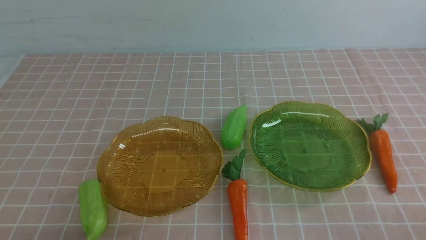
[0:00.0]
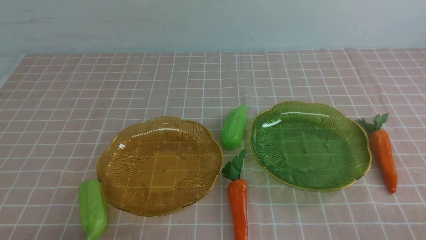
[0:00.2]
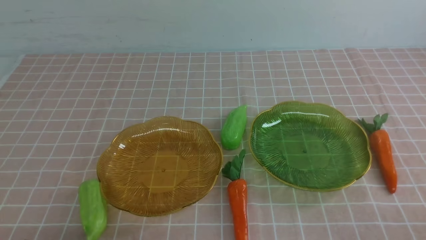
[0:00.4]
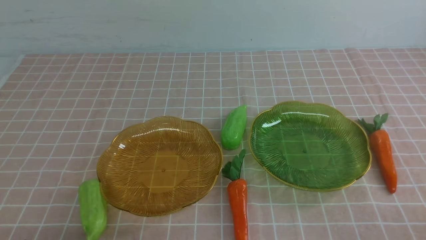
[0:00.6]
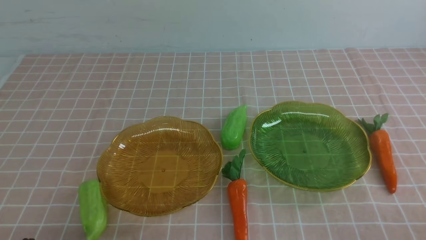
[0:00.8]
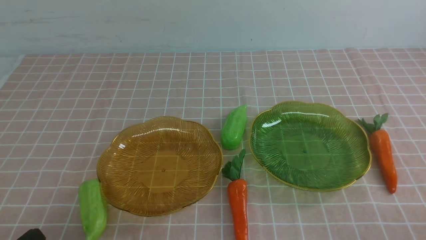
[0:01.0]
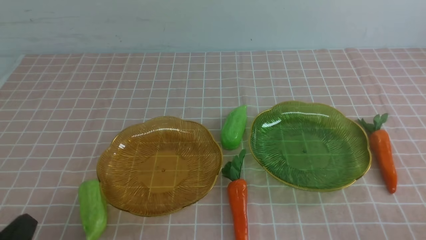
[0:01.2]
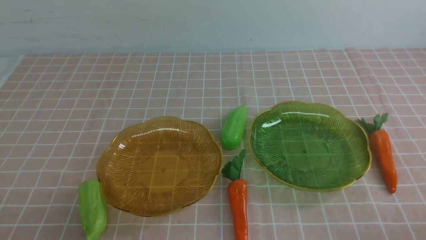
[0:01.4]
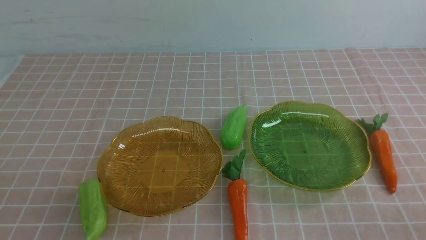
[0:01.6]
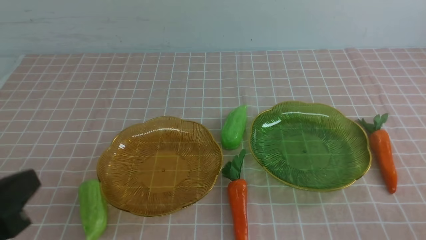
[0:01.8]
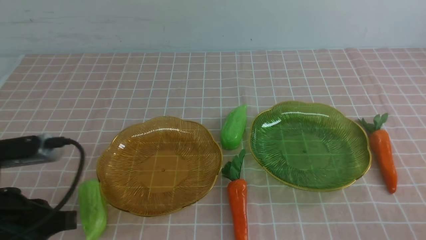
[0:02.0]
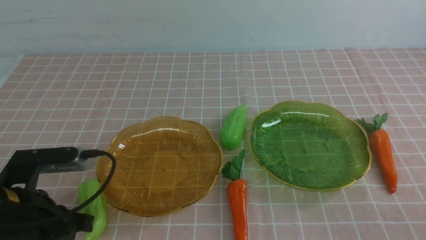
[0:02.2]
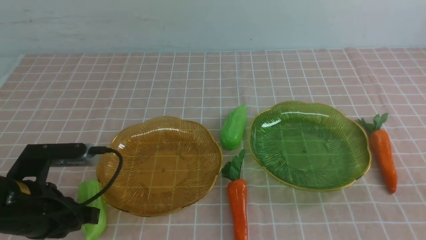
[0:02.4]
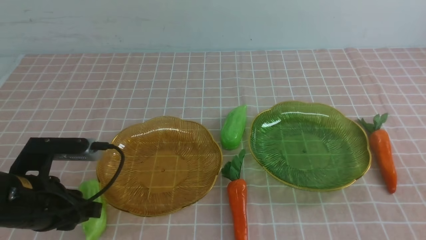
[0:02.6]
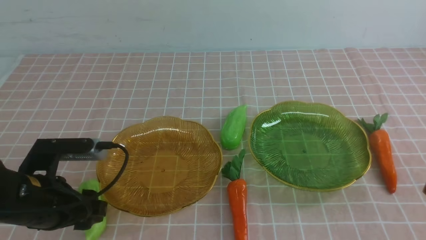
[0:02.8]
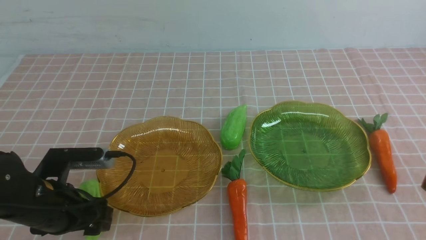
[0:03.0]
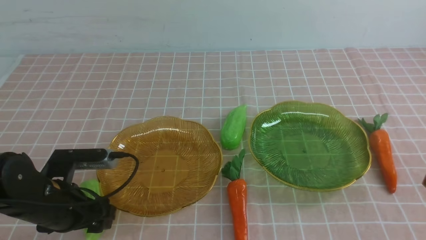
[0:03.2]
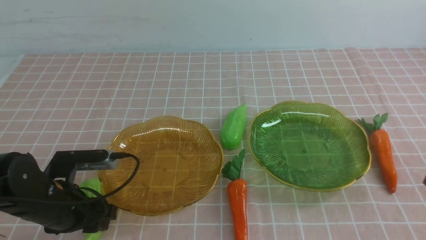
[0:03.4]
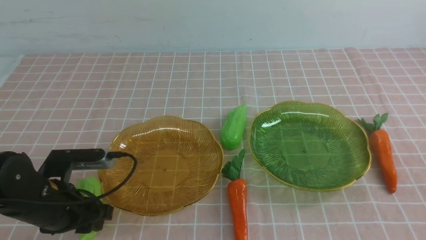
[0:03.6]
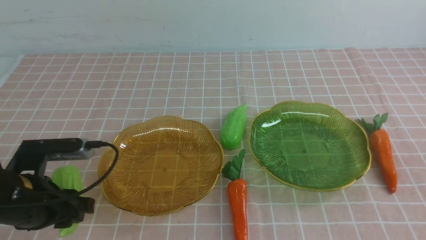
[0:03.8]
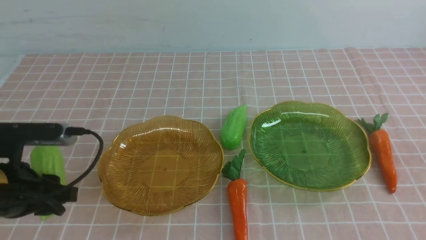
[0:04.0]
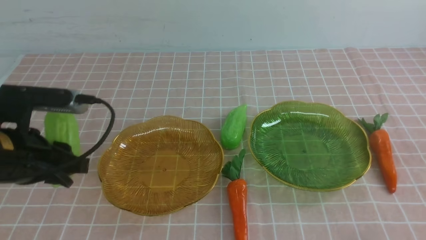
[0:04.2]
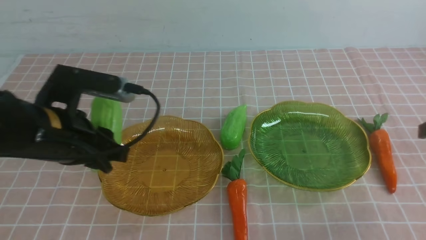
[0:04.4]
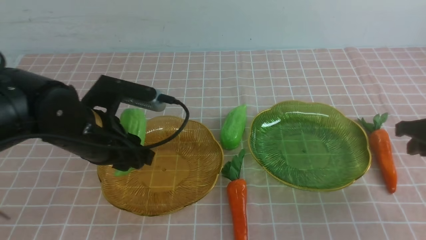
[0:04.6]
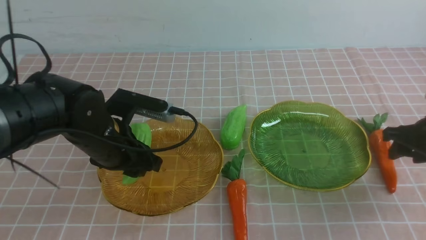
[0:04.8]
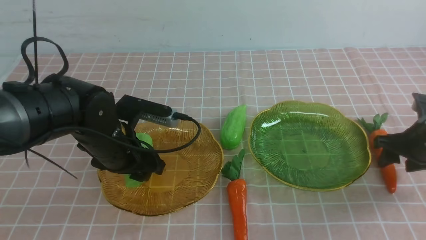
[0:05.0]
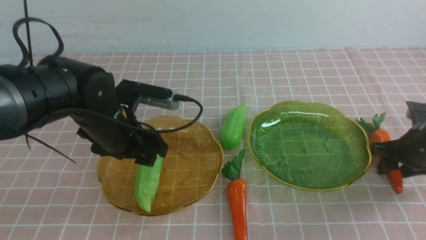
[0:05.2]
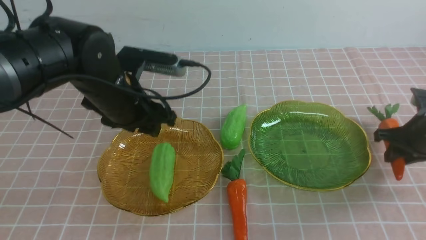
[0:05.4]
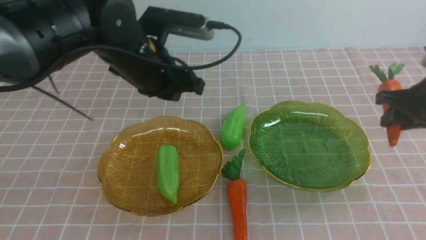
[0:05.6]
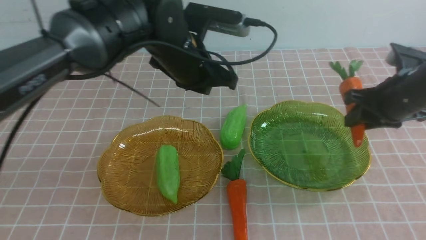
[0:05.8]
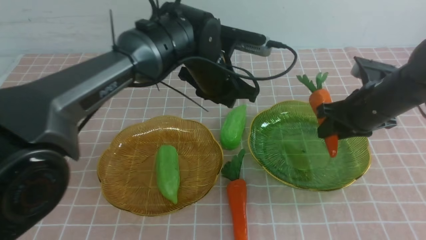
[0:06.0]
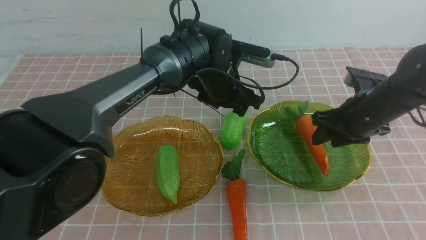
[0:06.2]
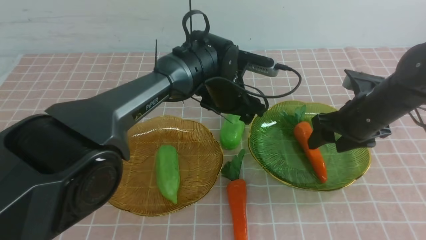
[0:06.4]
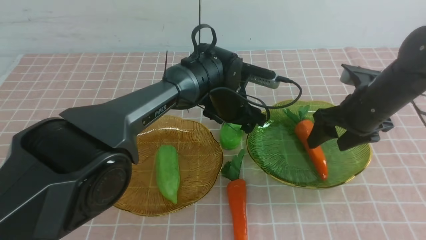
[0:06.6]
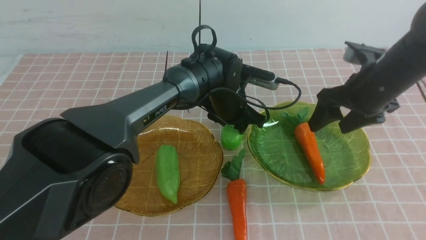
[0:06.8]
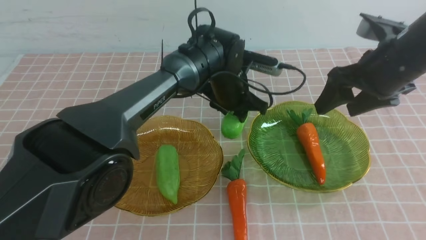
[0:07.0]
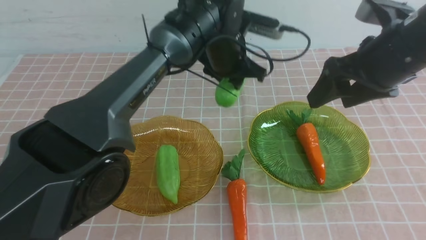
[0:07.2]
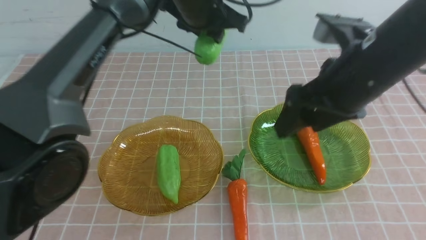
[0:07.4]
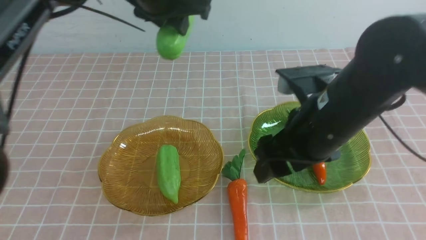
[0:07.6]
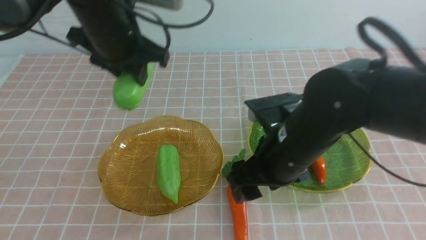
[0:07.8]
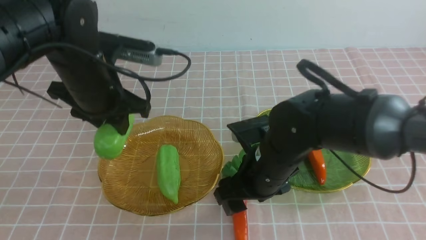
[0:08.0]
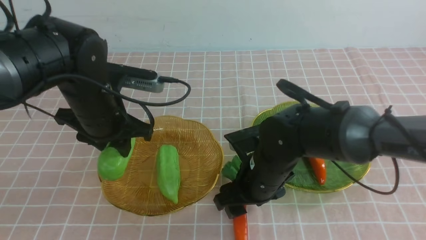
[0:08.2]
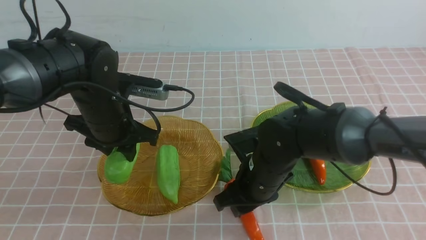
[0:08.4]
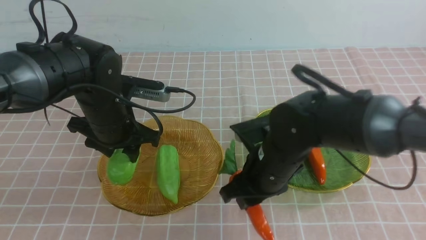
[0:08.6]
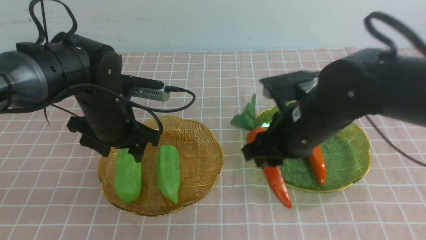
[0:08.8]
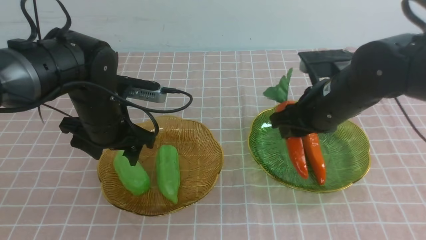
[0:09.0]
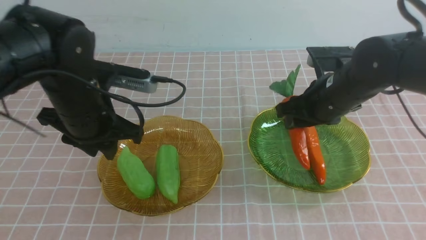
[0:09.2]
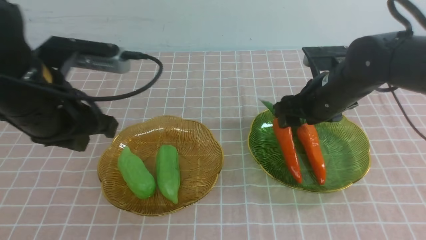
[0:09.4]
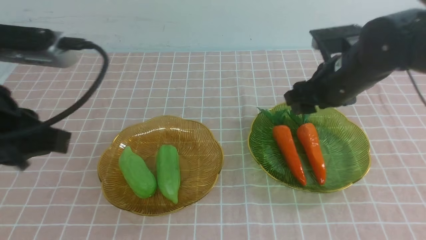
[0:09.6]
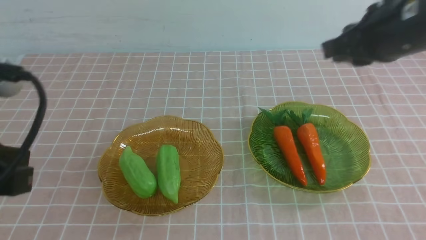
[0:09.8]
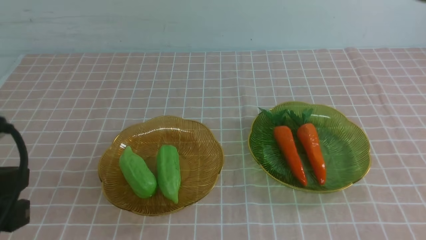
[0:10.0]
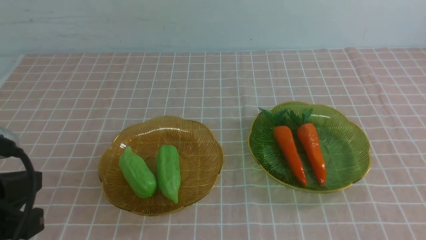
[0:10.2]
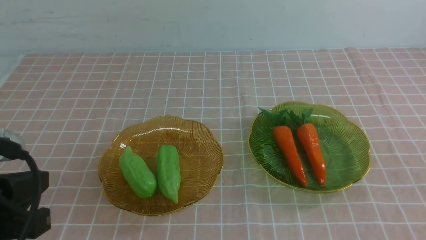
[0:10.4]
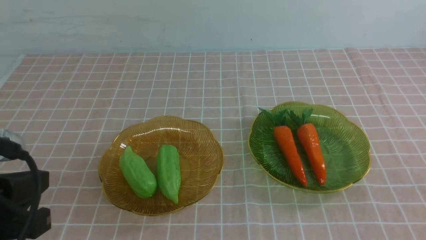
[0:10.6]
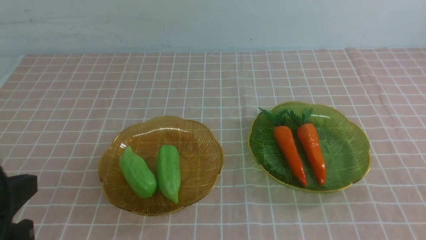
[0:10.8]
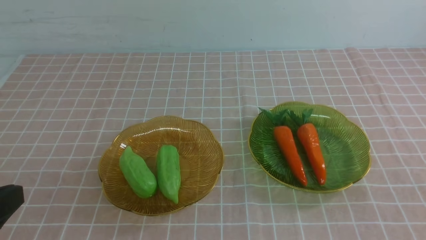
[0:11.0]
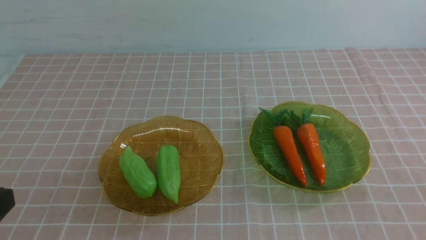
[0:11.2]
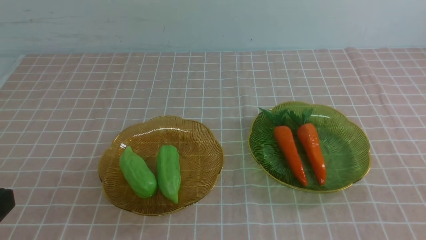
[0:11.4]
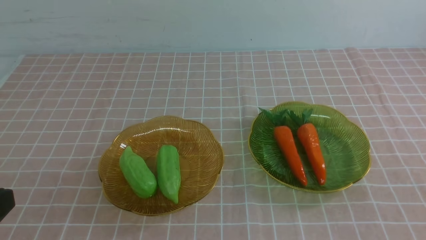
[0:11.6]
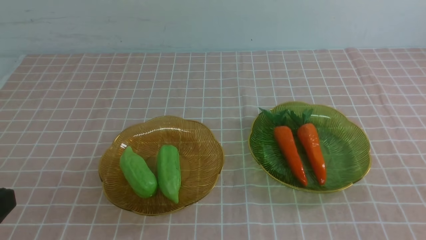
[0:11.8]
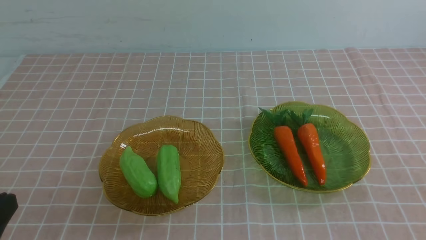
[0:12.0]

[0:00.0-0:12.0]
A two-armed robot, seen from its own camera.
Step, 0:00.0 to 0:05.0: use the left arm to grab a chayote and put it into the left plate.
Step, 0:05.2 to 0:06.2: use the right arm to grab a carrot and put it into the right plate.
Step, 0:06.4 to 0:07.8: use the left arm to grab a chayote and put it into the left plate.
Step, 0:08.0 to 0:09.4: use the right arm to grab a carrot and put it into the right plate.
0:01.6 to 0:03.0: The right gripper travels upward by about 10 cm. The left gripper goes roughly 20 cm forward and downward, and opens.
0:03.0 to 0:04.4: The left gripper heads to the right, forward and upward, covering about 10 cm; the right gripper is displaced forward and downward by roughly 25 cm, and opens up.
0:04.4 to 0:06.0: The right gripper shifts some 10 cm to the left; the left gripper goes approximately 20 cm to the right and forward, and closes and opens again.
0:06.0 to 0:07.6: The left gripper heads to the left, backward and upward, covering roughly 20 cm, and closes its fingers, while the right gripper goes about 20 cm to the left and backward.
0:07.6 to 0:09.0: The right gripper is displaced to the right, upward and forward by approximately 15 cm; the left gripper goes some 15 cm backward and upward, and closes its fingers.
0:09.0 to 0:10.4: The right gripper is displaced backward and to the right by roughly 35 cm, and closes up; the left gripper goes roughly 10 cm backward and downward.
0:10.4 to 0:12.0: The left gripper moves downward, roughly 15 cm.

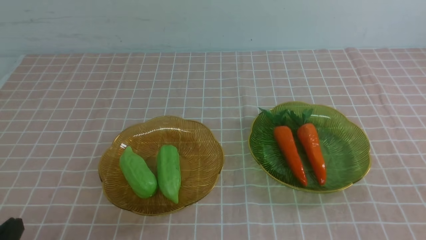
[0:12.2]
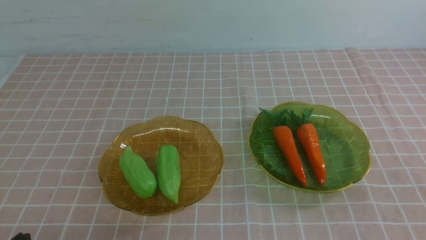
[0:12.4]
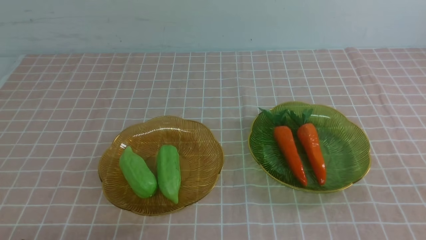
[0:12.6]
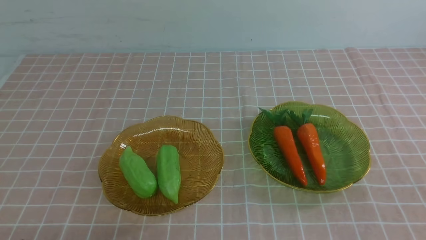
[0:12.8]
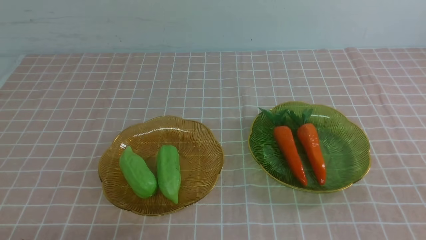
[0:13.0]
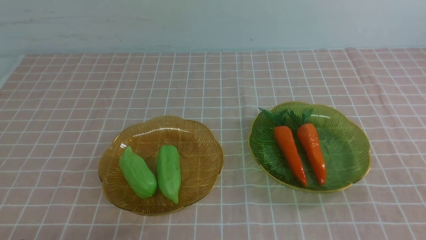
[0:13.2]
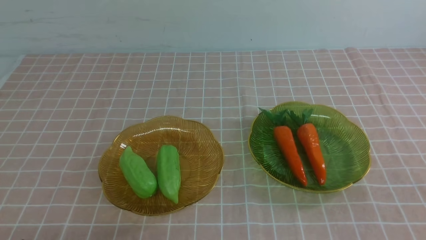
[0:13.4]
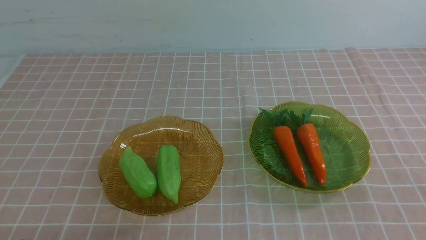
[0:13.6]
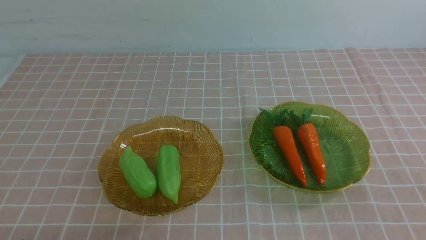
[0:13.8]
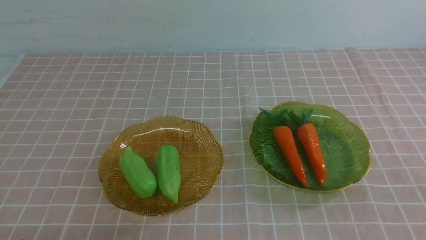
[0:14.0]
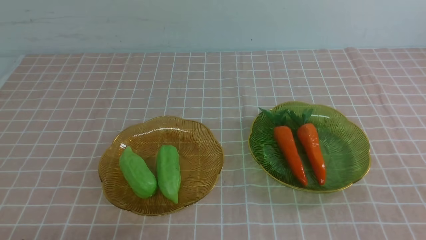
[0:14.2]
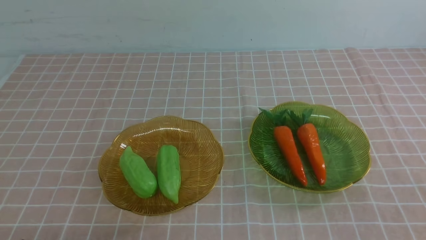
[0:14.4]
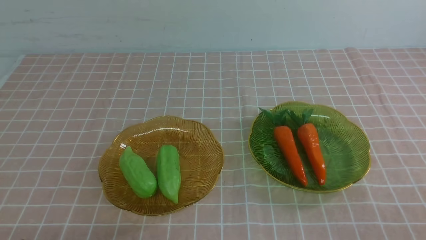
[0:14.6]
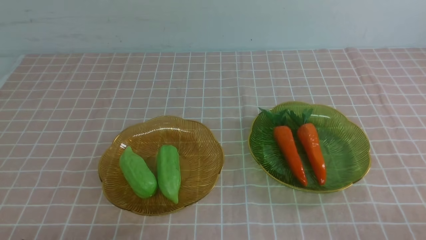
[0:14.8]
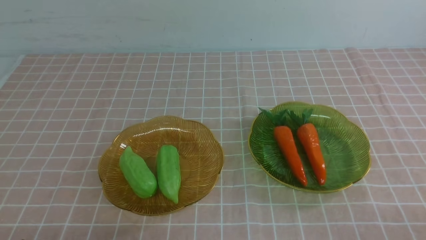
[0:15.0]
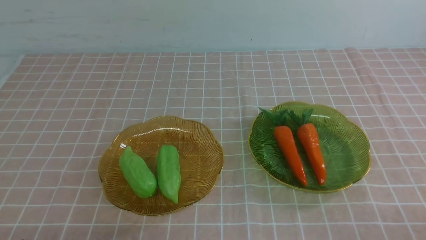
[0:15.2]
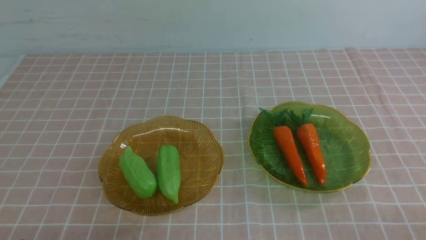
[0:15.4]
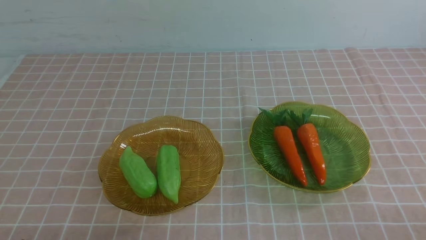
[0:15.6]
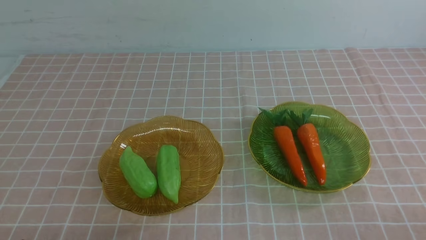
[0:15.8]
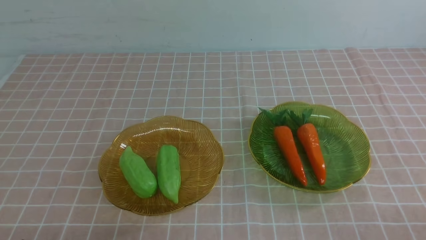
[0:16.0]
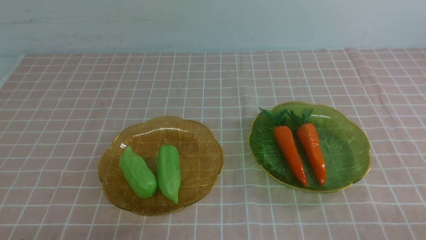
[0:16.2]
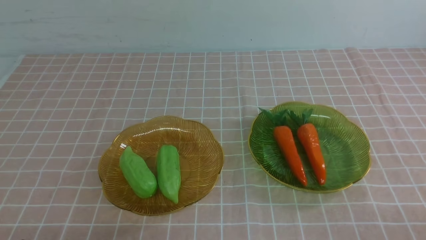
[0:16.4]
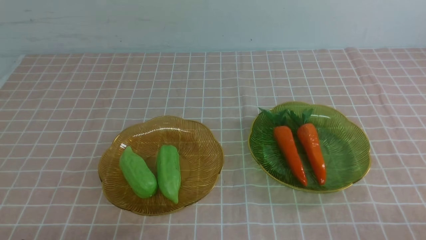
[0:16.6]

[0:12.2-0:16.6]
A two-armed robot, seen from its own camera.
0:12.2 to 0:13.6: The two grippers keep their place.
0:15.2 to 0:16.6: The two grippers keep their place.
